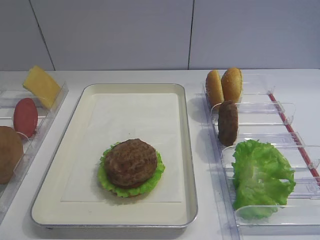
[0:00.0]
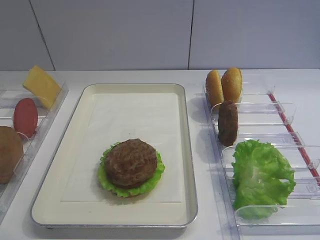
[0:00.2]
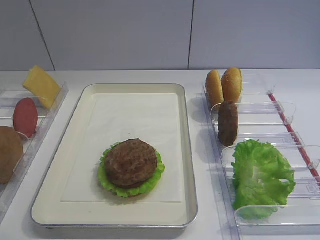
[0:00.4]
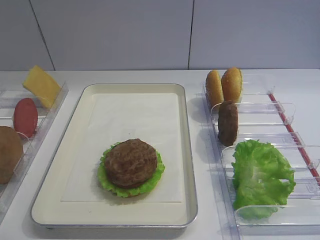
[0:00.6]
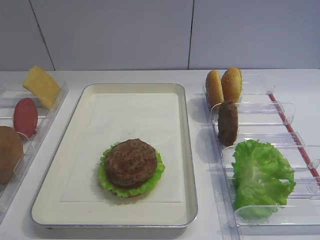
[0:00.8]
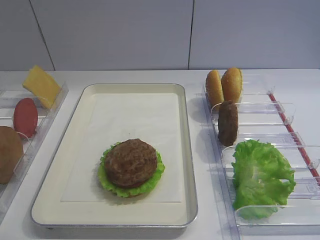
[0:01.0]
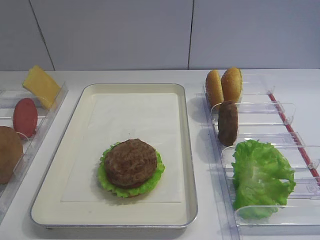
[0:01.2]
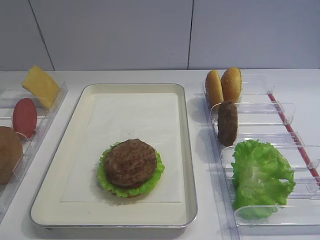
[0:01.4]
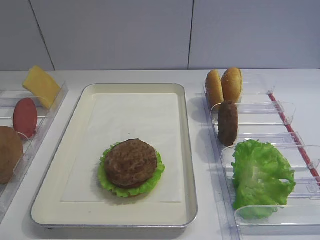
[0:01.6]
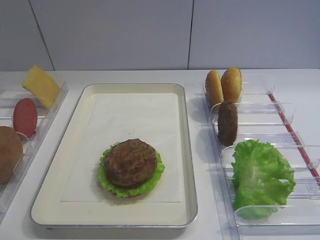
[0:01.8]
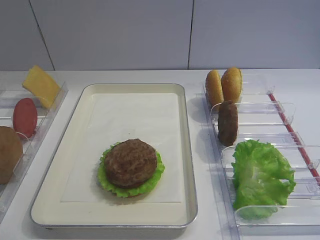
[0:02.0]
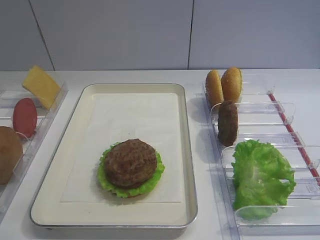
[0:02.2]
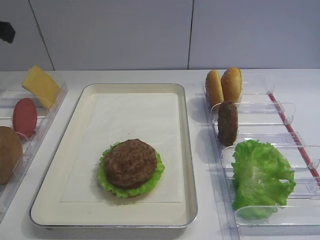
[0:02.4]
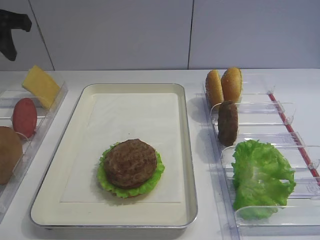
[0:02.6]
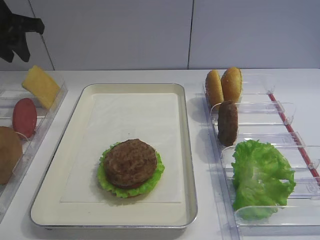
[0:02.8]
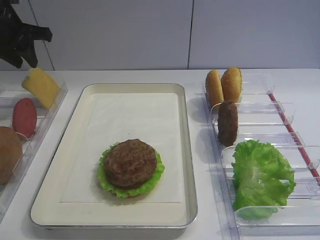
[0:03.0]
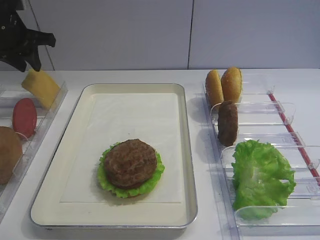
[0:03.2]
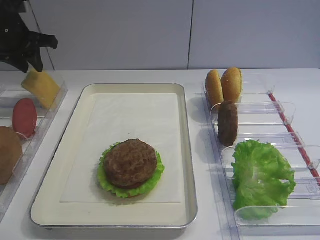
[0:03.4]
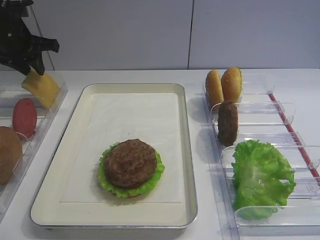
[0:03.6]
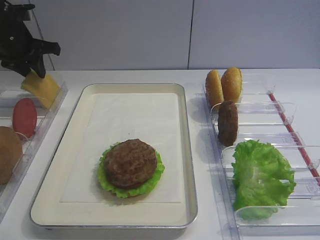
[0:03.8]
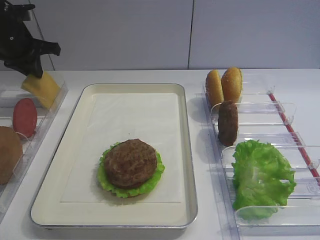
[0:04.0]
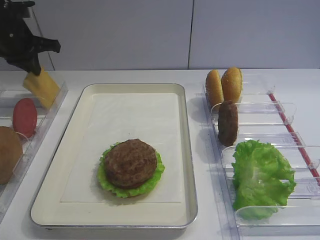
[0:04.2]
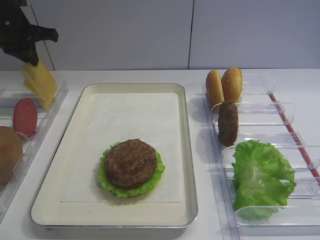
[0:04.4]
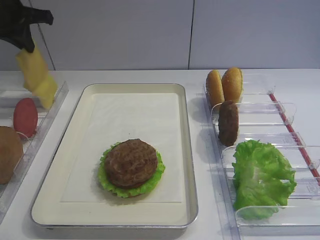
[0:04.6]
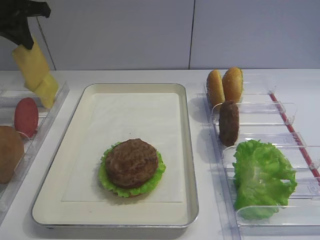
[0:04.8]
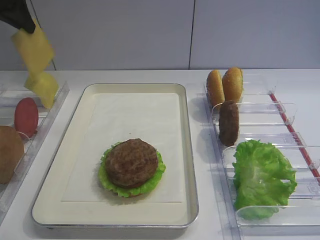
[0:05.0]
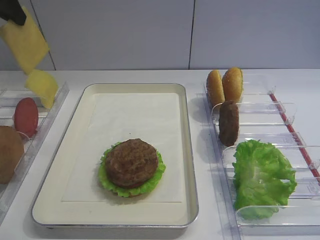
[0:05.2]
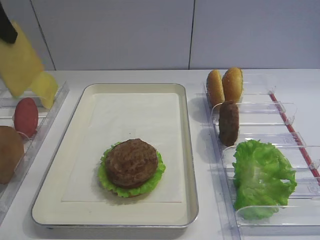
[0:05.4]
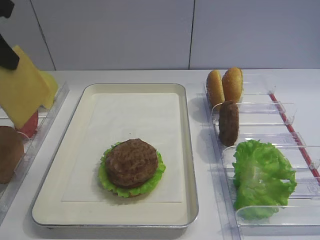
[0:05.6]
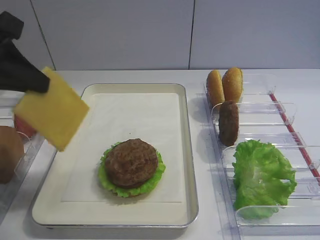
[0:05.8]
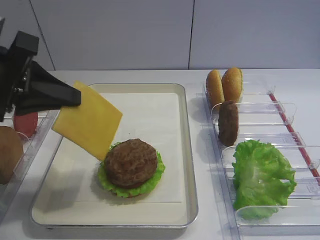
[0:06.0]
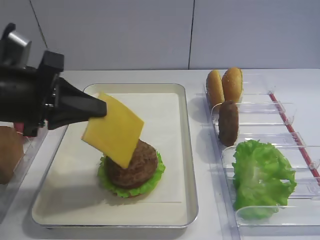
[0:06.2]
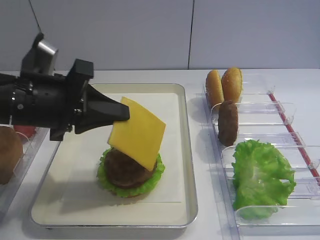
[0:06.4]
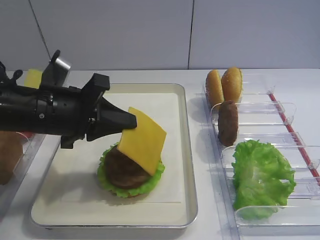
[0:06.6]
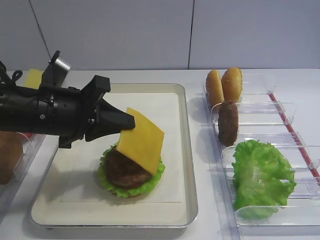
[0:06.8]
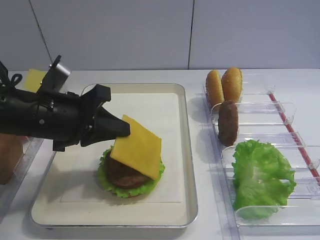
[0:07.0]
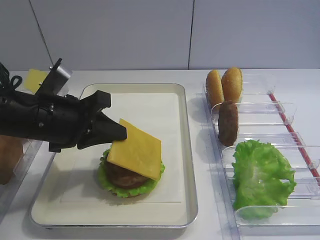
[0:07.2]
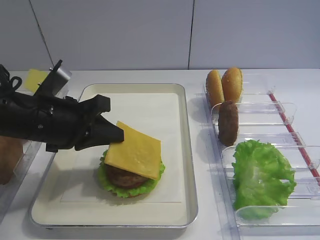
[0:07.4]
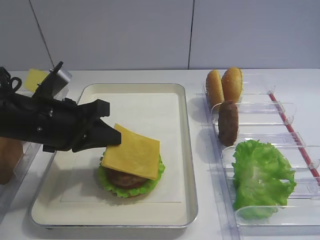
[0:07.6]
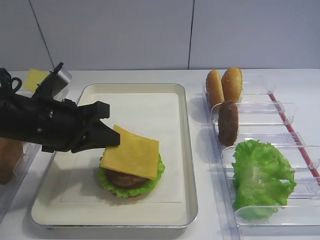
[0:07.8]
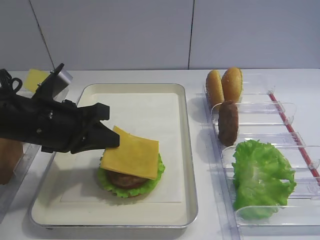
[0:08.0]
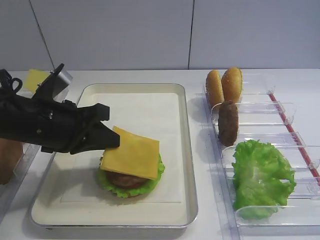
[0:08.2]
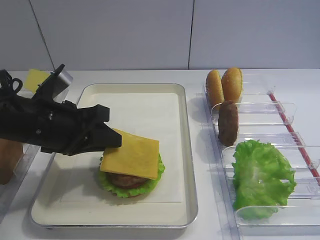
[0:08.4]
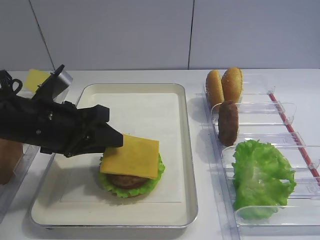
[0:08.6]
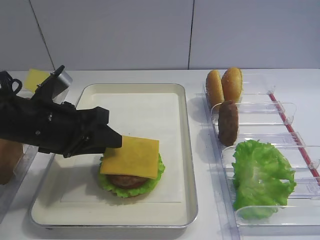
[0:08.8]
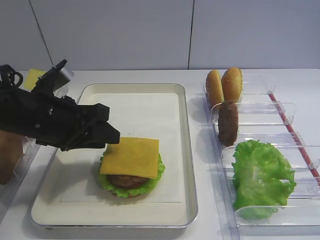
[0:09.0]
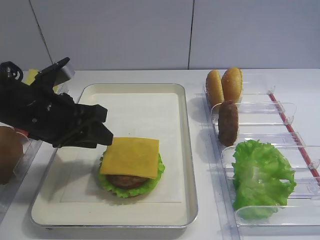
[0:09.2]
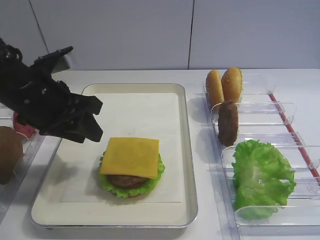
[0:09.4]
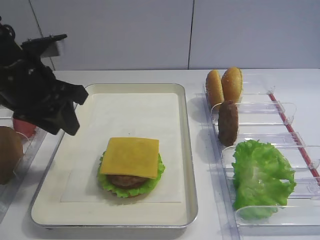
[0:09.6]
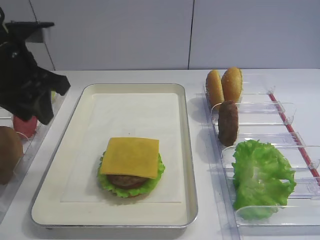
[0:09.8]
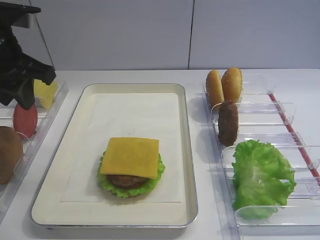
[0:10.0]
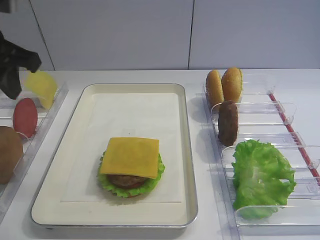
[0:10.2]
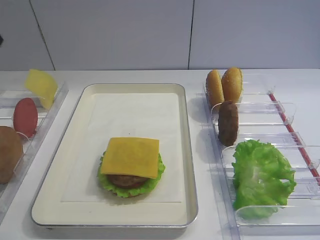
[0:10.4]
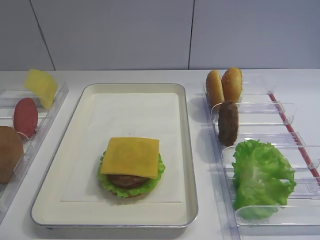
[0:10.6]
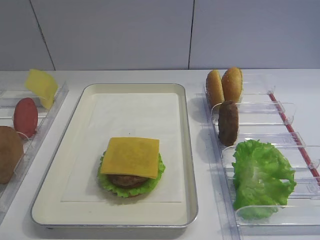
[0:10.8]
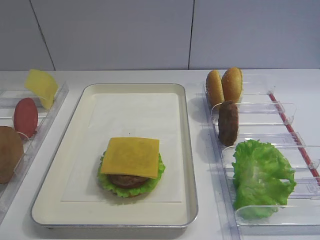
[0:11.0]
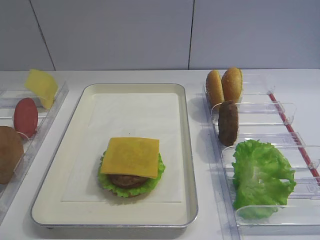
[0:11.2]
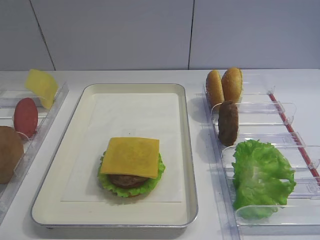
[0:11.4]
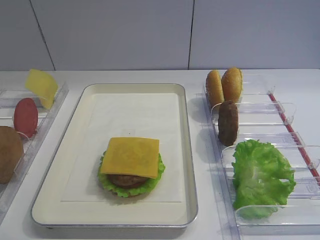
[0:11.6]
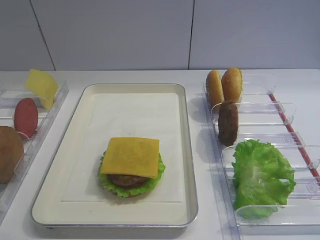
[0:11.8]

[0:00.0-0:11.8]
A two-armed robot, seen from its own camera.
Step, 0:00.0 to 0:04.4: Pick up the cheese slice with the left gripper.
Step, 0:04.6 to 0:09.0: Place the cheese slice on the cutlet with the left gripper.
0:01.4 to 0:03.0: The left gripper is displaced forward by roughly 40 cm.
0:03.0 to 0:04.4: The left gripper closes.
0:04.4 to 0:06.0: The left gripper moves backward, about 25 cm.
0:06.0 to 0:07.4: The left gripper goes roughly 10 cm downward and to the right.
0:07.4 to 0:08.8: The left gripper opens.
0:08.8 to 0:10.4: The left gripper heads upward and to the left, covering roughly 20 cm.

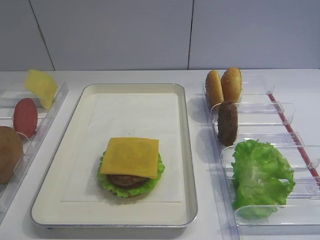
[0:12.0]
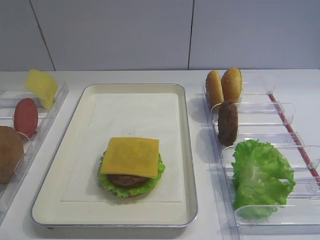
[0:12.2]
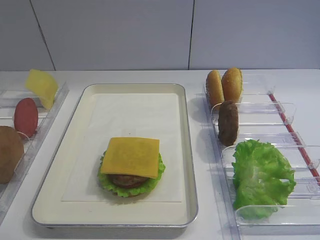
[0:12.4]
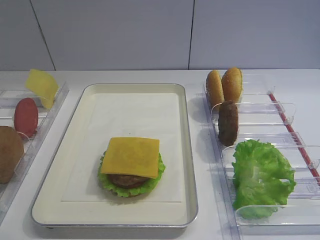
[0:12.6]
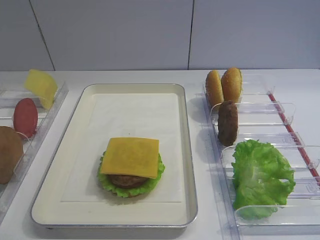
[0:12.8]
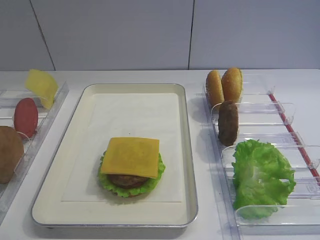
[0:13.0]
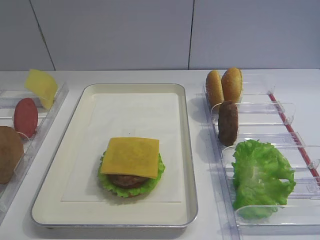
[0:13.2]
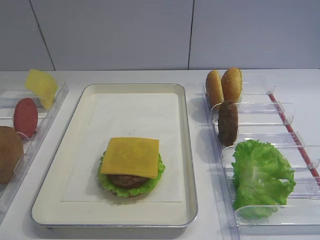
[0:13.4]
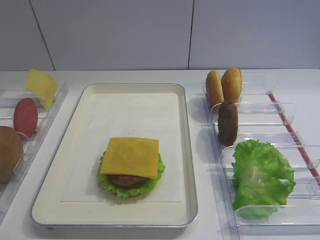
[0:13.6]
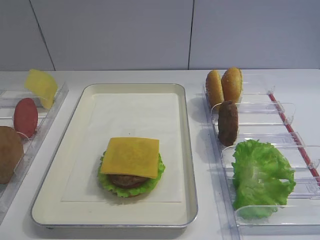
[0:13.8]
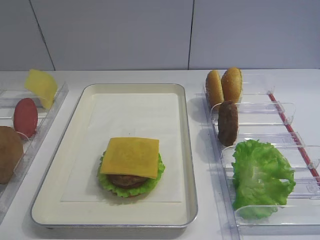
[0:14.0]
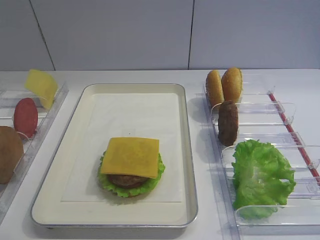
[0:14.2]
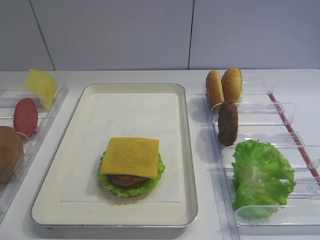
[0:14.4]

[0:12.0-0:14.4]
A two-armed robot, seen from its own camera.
0:12.0 to 0:14.4: Neither gripper changes place.

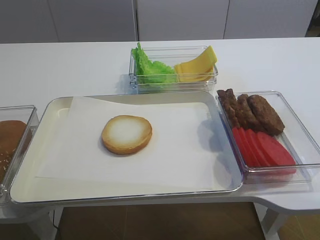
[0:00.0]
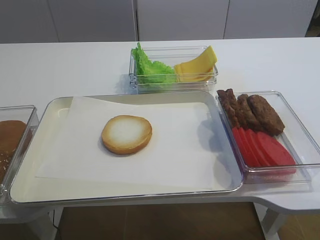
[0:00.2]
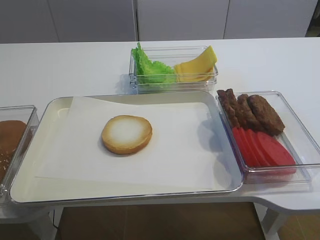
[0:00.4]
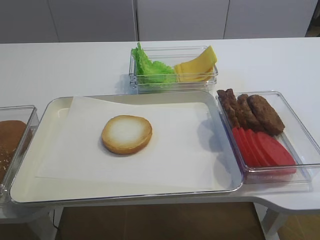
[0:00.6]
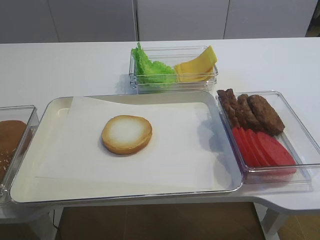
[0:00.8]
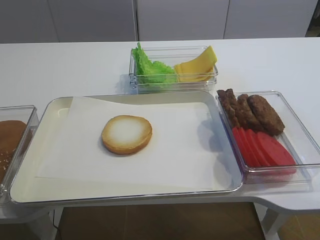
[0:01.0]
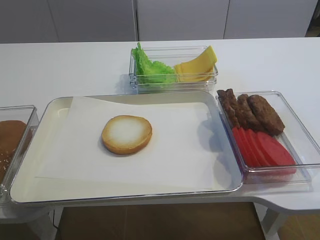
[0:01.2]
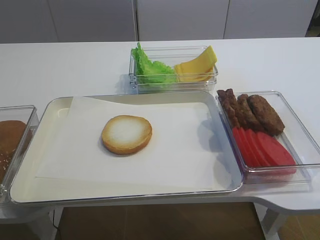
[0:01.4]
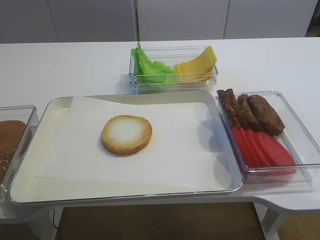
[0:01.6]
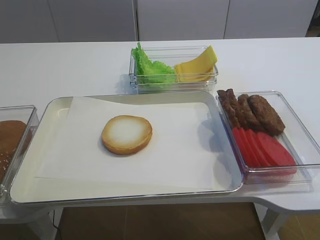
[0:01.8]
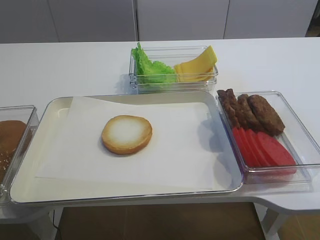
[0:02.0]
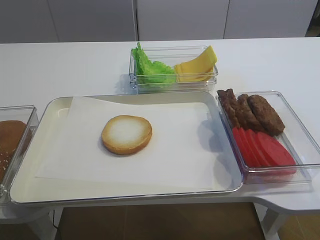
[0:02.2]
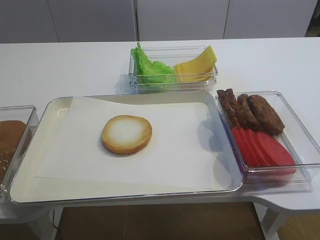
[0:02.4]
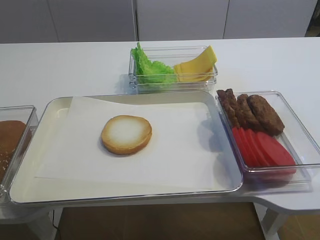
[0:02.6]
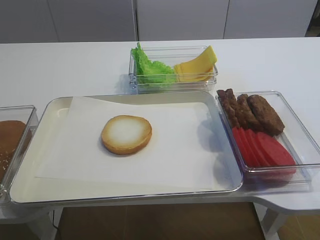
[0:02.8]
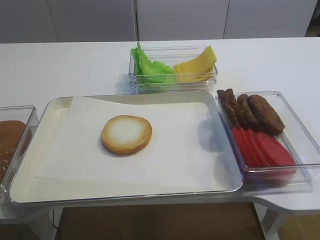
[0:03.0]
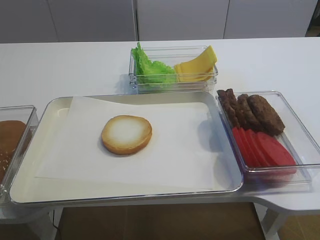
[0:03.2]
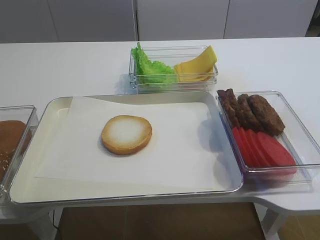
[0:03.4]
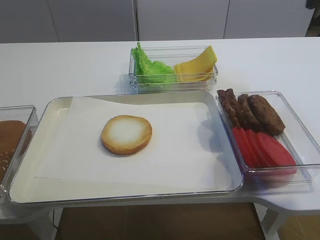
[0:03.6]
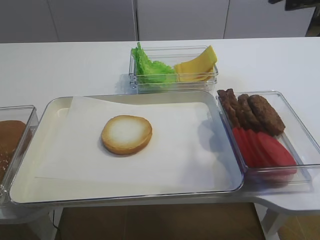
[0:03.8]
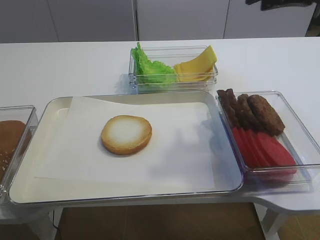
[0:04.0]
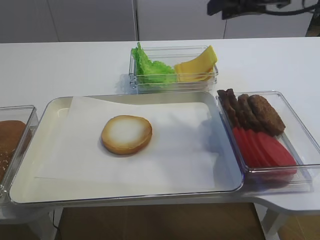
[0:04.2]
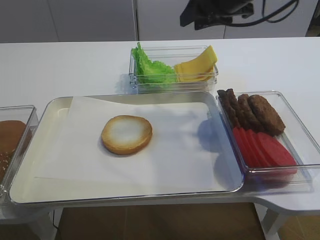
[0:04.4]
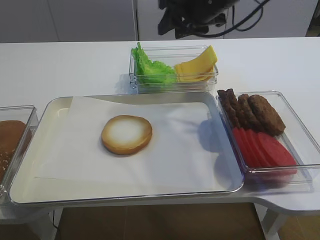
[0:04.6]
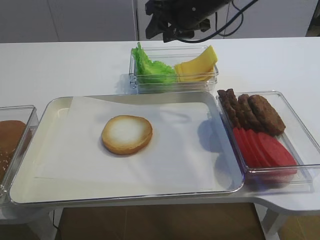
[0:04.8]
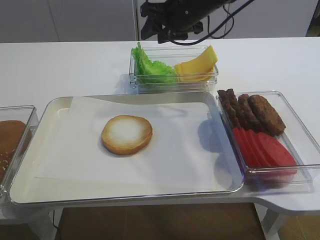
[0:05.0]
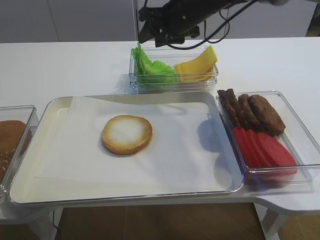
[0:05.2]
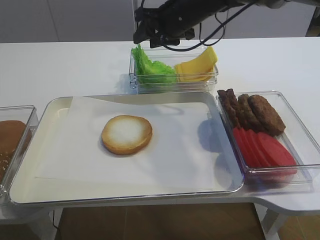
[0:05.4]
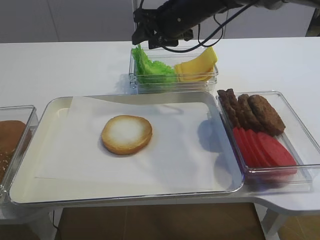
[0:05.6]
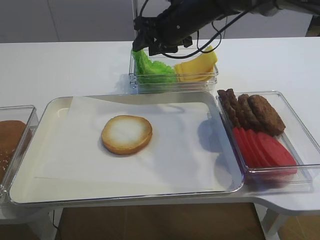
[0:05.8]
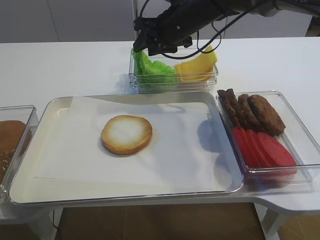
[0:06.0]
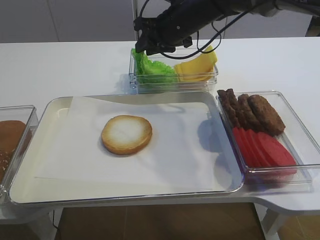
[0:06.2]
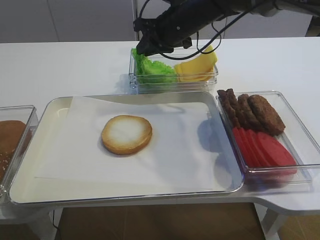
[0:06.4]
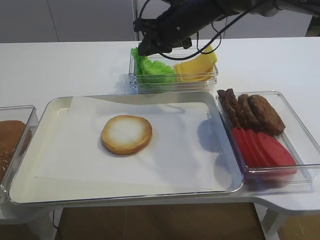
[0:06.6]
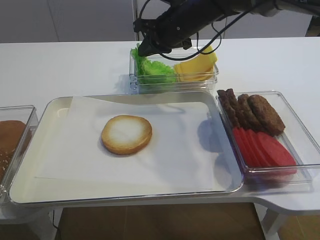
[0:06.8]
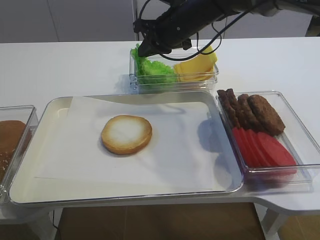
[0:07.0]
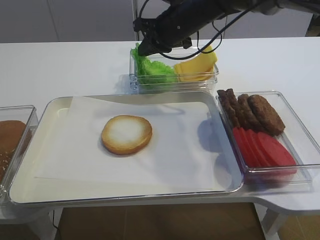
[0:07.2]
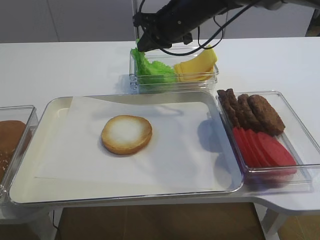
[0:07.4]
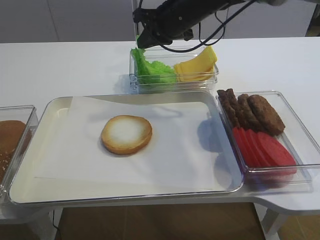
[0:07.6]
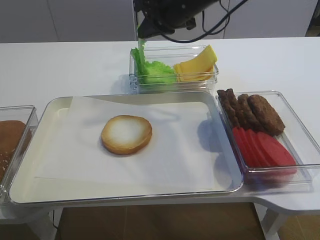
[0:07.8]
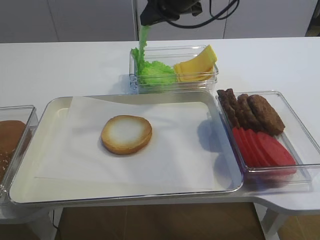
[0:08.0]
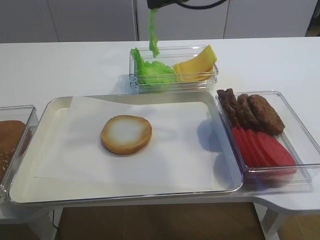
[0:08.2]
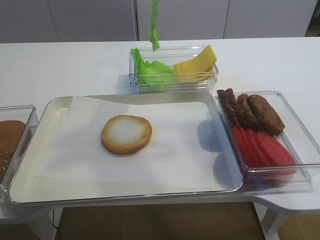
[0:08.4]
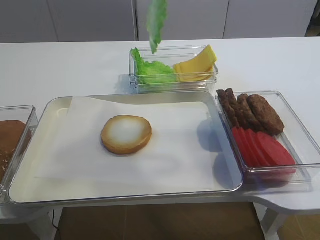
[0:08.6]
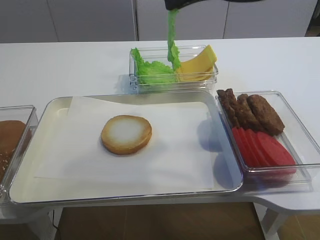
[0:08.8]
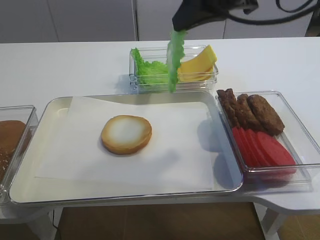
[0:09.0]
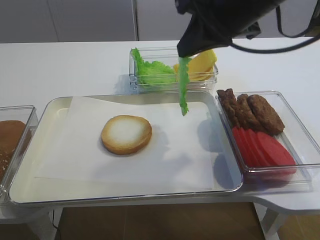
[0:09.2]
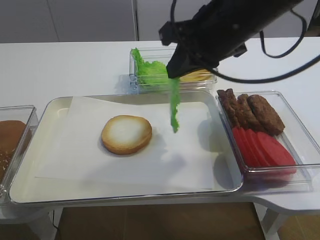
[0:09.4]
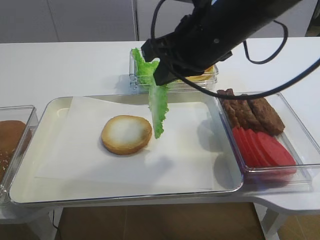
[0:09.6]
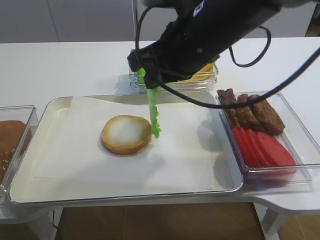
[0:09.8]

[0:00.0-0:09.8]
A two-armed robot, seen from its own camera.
Step, 0:00.0 to 0:08.0: Pick up the lettuce leaf with the right gripper.
0:01.4 to 0:02.8: The right gripper moves upward, about 10 cm, and opens its fingers.
0:02.8 to 0:04.2: The right gripper shifts approximately 30 cm forward.
0:04.2 to 0:05.6: The right gripper heads to the left, forward and downward, covering about 20 cm.
0:05.6 to 0:07.0: The right gripper closes.
0:07.0 to 0:08.4: The right gripper is displaced upward and backward by approximately 15 cm.
0:08.4 to 0:09.8: The right gripper travels backward and downward by roughly 15 cm.
